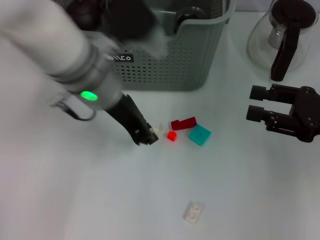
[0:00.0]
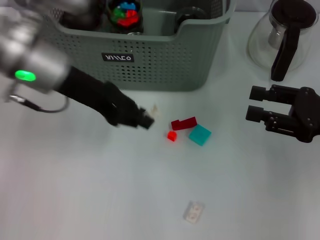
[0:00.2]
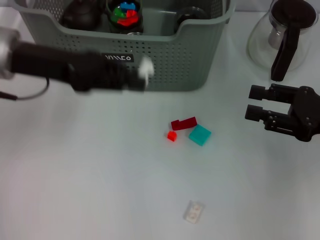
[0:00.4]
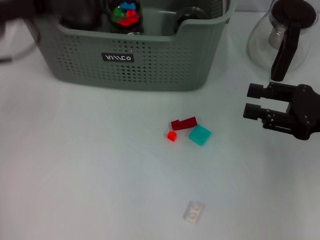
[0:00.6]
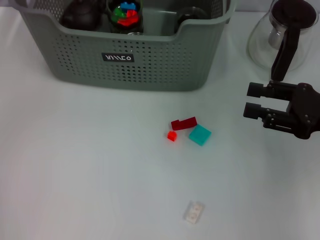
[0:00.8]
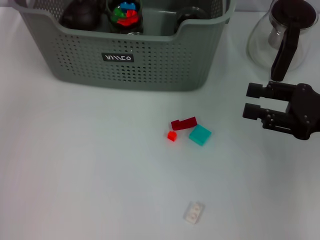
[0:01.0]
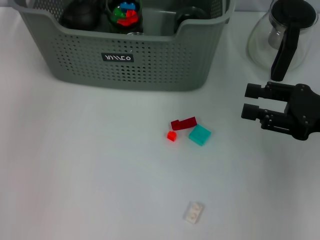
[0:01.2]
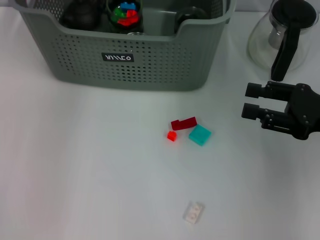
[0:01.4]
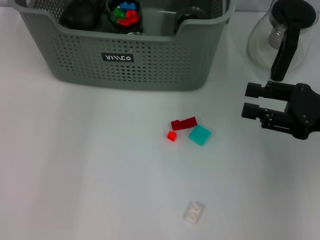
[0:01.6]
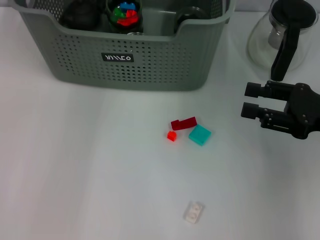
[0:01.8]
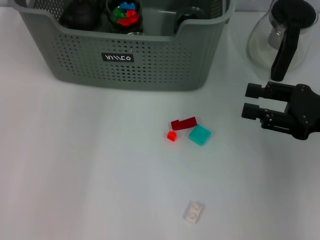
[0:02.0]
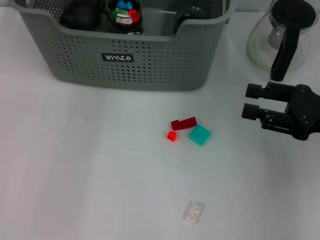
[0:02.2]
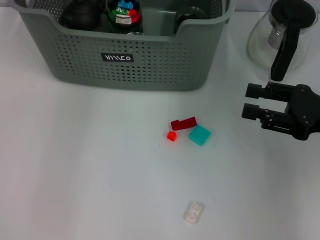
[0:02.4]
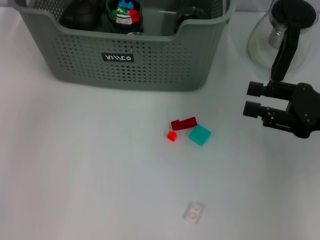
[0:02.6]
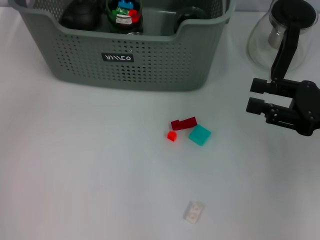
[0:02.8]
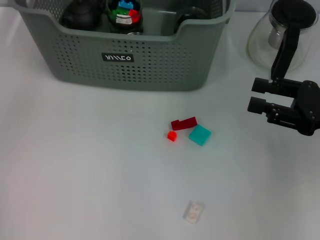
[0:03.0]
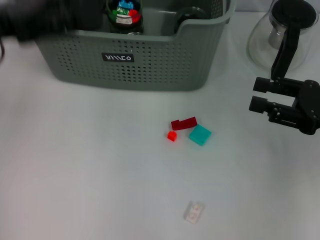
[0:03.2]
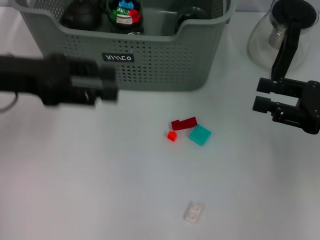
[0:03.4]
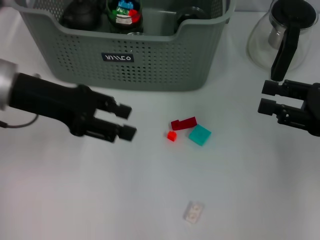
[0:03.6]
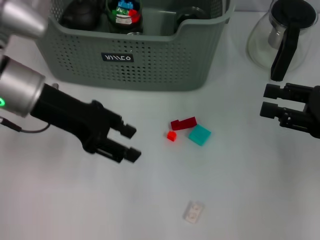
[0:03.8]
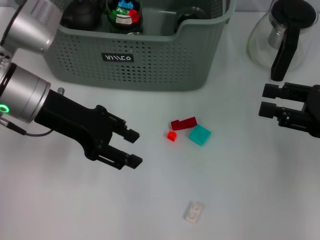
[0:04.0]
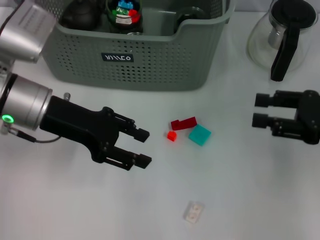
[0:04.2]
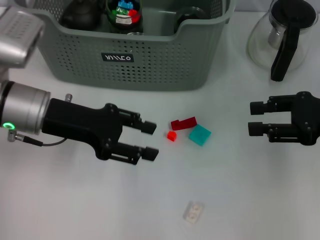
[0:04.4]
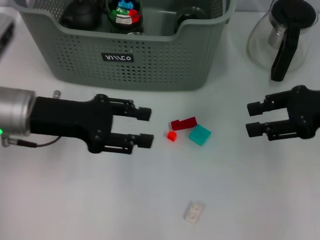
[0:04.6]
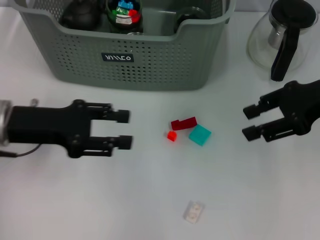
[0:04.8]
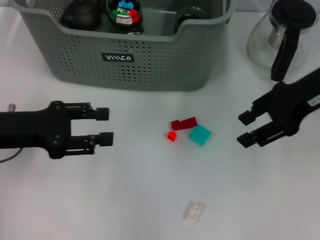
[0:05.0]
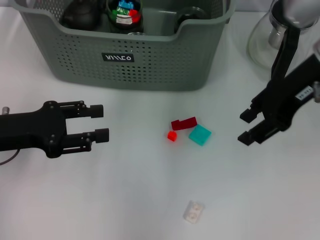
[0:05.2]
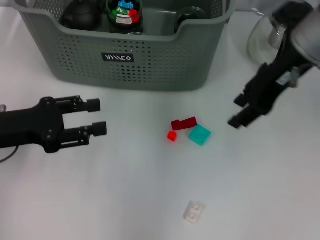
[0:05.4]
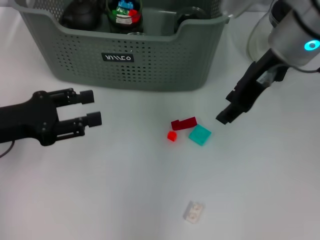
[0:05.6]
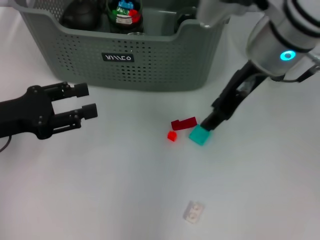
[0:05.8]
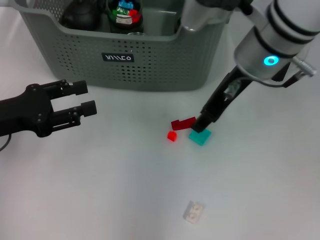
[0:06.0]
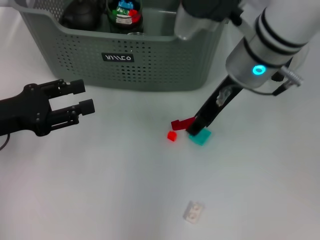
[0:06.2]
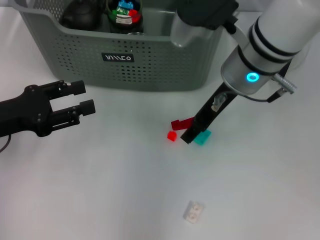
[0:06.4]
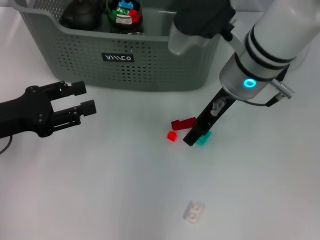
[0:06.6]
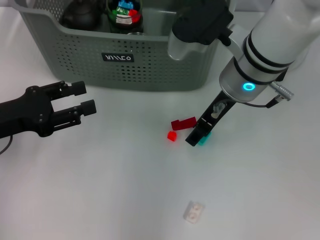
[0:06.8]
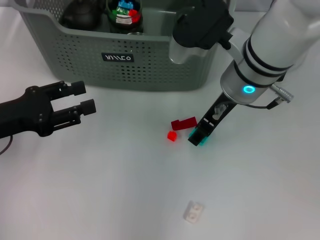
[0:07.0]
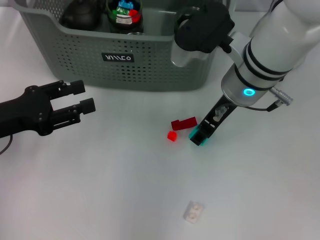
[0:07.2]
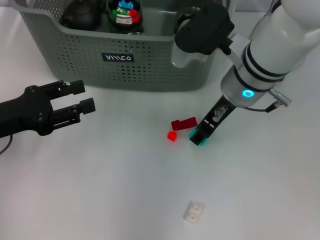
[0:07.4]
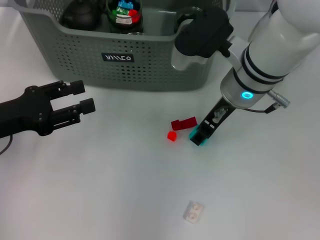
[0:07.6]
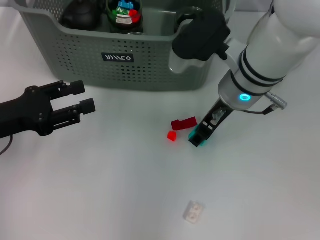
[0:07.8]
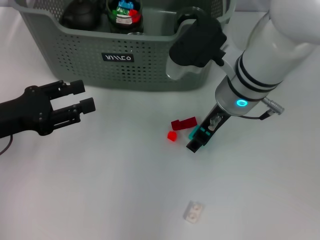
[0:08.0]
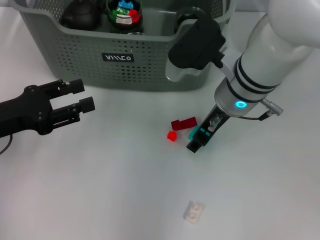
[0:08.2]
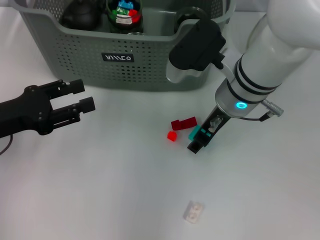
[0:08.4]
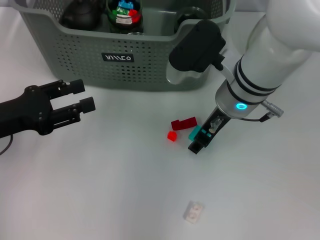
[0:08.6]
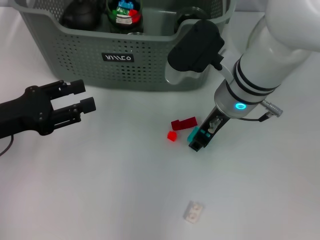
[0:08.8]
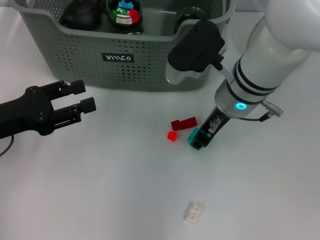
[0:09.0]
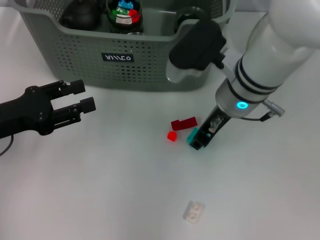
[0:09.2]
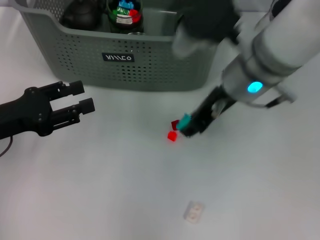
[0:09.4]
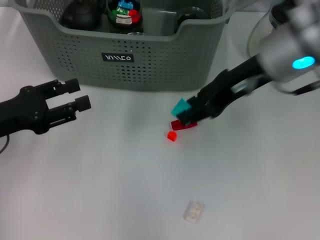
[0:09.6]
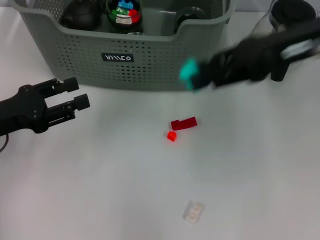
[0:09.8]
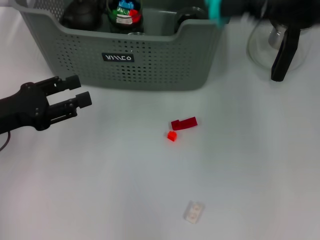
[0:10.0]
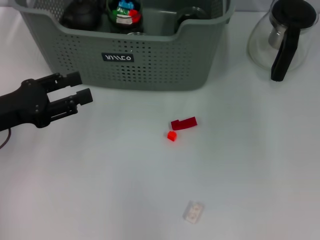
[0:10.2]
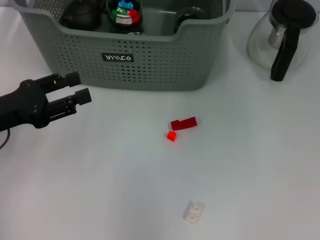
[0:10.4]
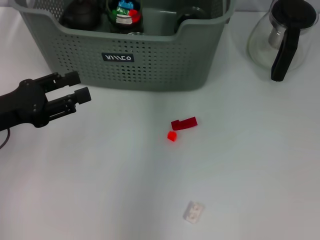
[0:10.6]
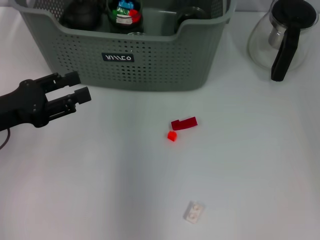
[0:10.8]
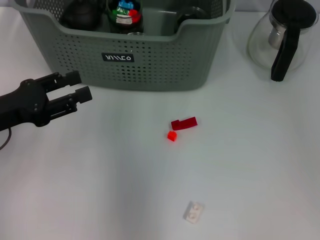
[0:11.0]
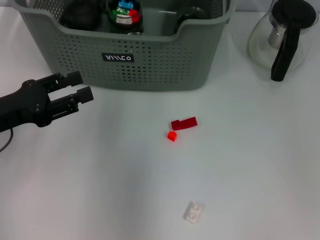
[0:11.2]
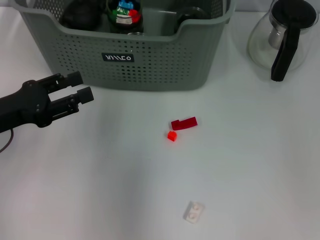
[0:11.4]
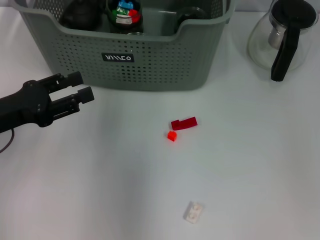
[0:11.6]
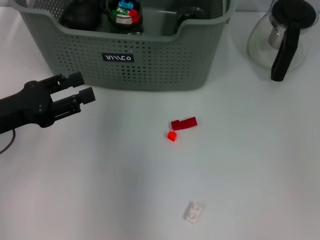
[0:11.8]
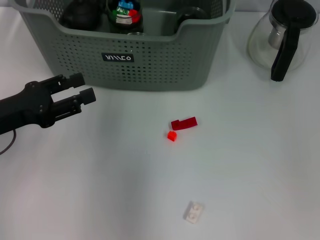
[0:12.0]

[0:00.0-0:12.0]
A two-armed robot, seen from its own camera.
Task of the whole recording: pick up the teacup on the table and place it into the storage bin, pick up the block on the table and place it into the storage bin.
Step, 0:00.0 to 0:02.2: Place the white block in the storage box with left gripper.
Step, 0:02.4 to 0:09.0: Grasp the light blue block with right gripper.
0:00.0 to 0:01.6: The left gripper goes approximately 20 cm forward and upward.
0:03.0 to 0:04.4: The left gripper shifts roughly 15 cm downward and to the right.
0:04.4 to 0:06.0: The right gripper is displaced to the left by roughly 20 cm; the left gripper shifts roughly 10 cm to the left and backward.
0:06.0 to 0:07.6: The right gripper travels downward by approximately 5 cm.
0:07.6 to 0:09.0: The grippers make only small movements.
0:09.0 to 0:10.4: The right gripper is displaced upward and to the right by some 25 cm.
0:10.4 to 0:12.0: The right gripper shifts roughly 20 cm to the left, downward and forward.

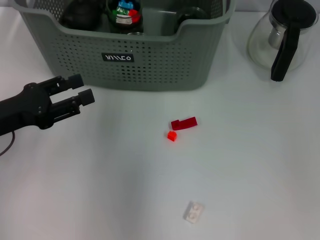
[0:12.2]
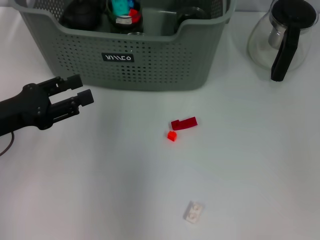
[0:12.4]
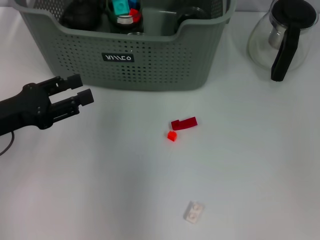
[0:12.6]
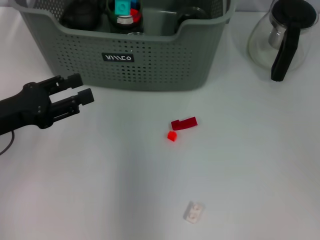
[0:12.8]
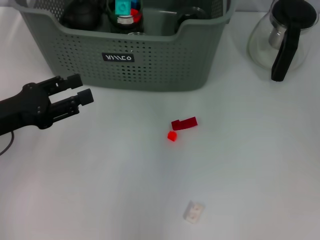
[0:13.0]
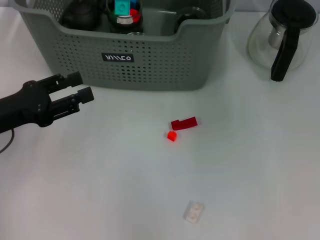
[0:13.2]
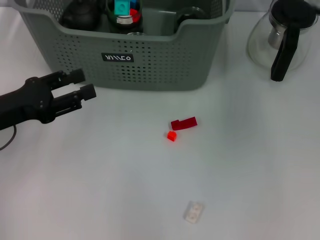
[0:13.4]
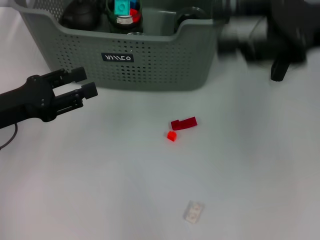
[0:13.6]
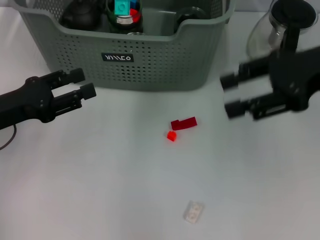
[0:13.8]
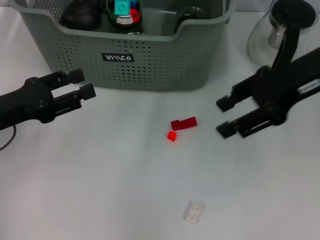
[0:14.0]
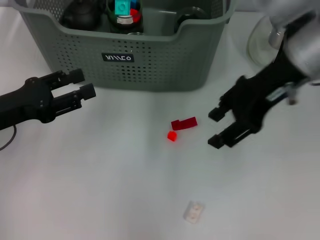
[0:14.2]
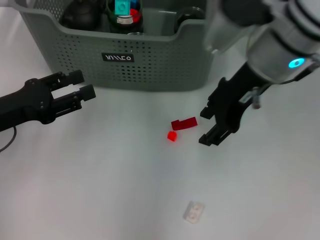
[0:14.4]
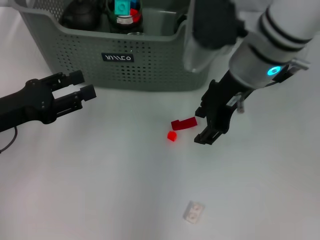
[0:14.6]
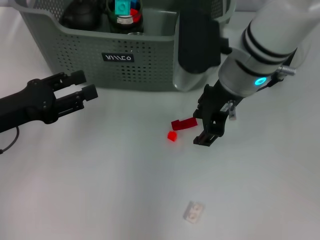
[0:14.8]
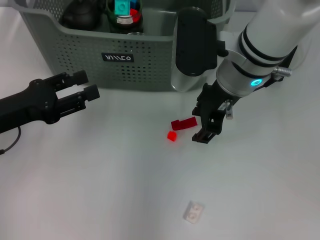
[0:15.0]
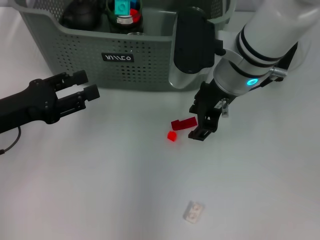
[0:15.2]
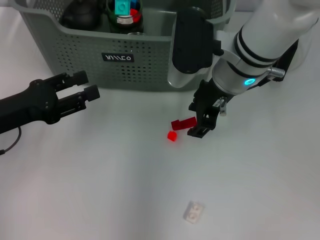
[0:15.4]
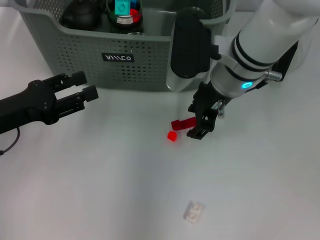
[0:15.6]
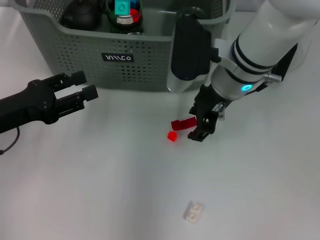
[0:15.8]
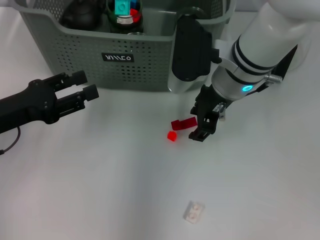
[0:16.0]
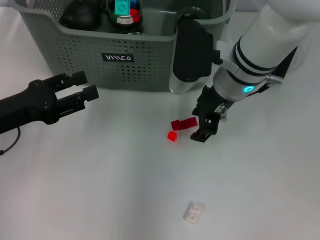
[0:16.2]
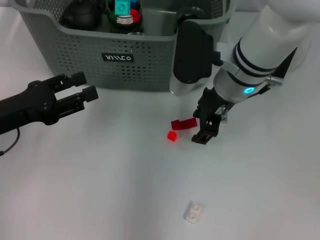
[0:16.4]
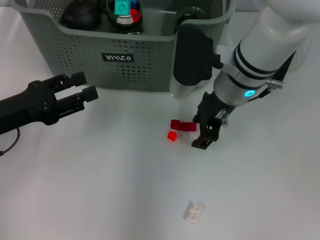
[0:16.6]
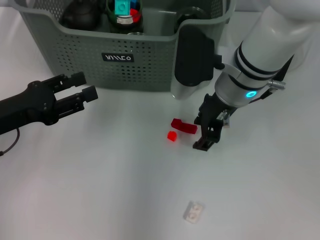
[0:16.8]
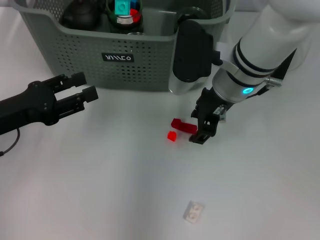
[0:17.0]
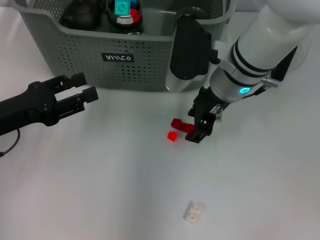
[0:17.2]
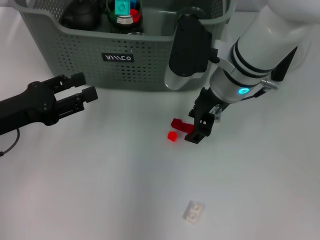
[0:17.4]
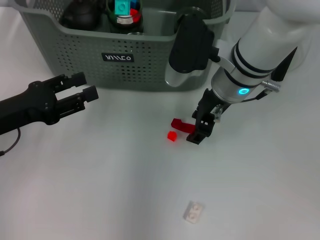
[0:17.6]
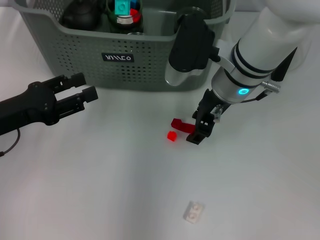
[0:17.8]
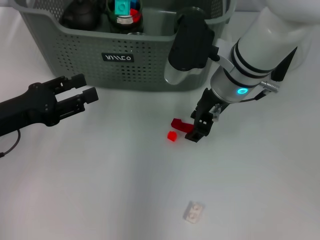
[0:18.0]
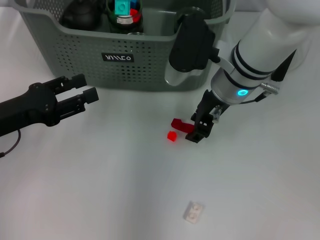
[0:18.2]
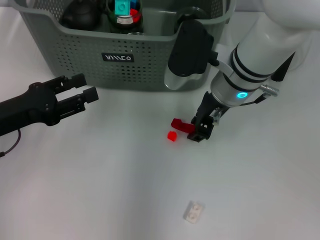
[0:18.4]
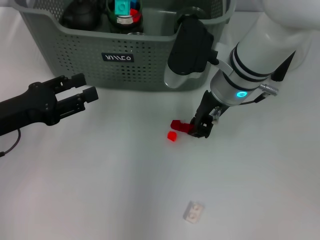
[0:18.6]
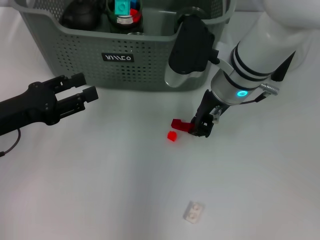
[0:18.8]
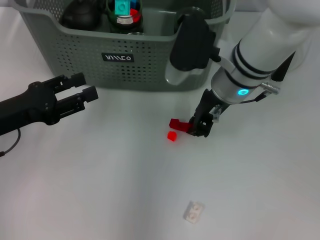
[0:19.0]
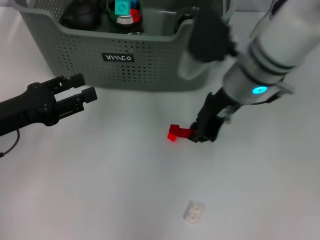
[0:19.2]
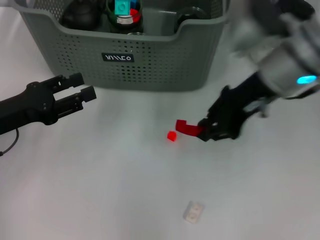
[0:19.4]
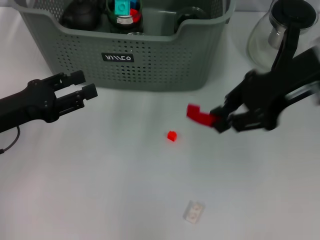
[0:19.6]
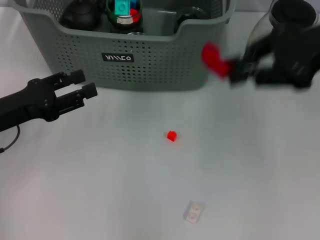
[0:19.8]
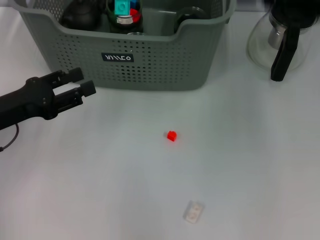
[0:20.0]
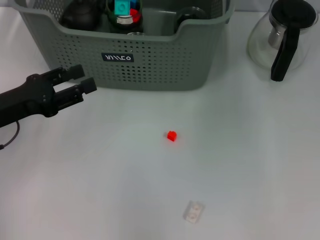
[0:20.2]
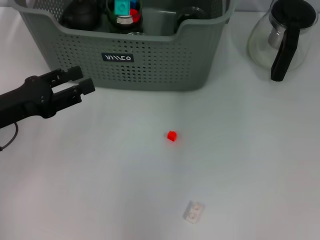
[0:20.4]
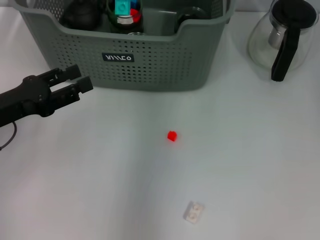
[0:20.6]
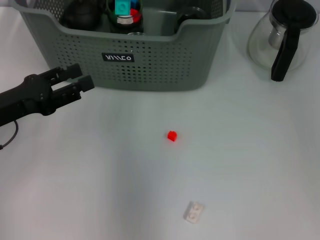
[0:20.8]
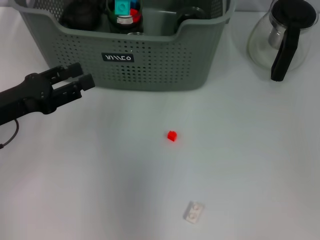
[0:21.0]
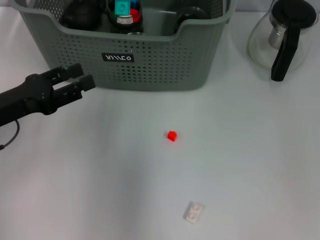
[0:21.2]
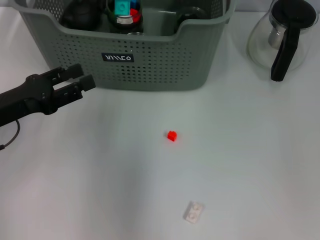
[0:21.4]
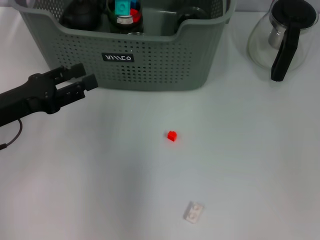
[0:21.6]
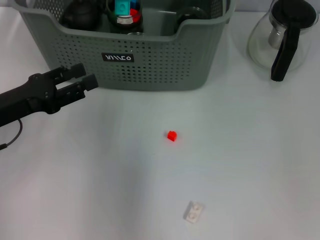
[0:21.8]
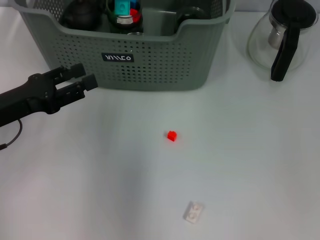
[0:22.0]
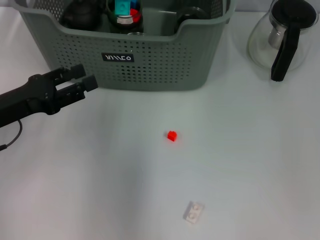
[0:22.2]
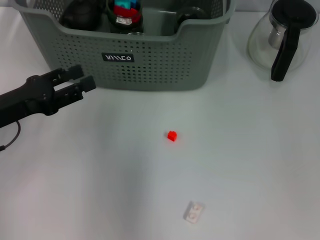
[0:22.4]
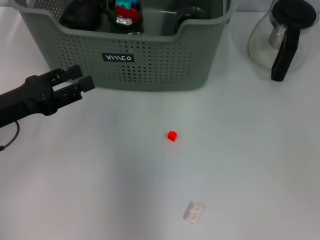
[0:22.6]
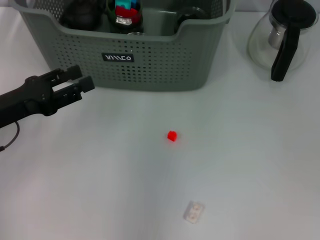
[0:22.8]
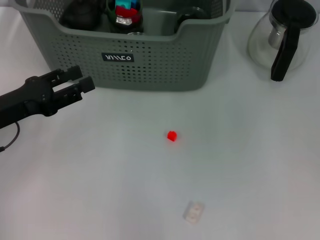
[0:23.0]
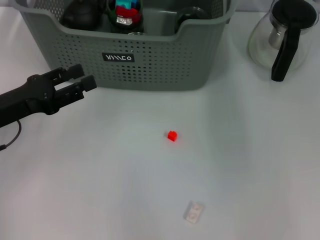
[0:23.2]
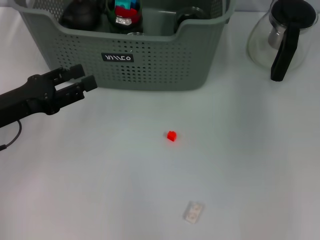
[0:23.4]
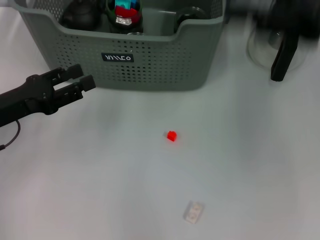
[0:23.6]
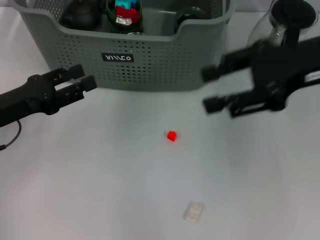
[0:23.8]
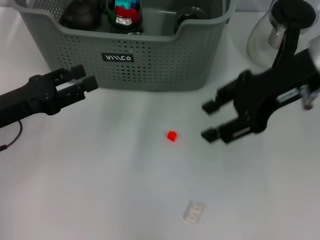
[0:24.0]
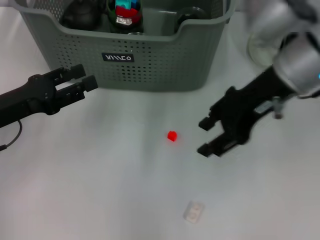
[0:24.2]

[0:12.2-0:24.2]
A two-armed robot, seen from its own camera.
Task of the whole recording: pick up the teacup on the table and place it into the storage bin, pick up the block on the table and place it into the storage bin.
Step, 0:12.6 to 0:18.8: Grasp the red block with right gripper.
Step, 0:19.0 to 0:22.2: Place the red block in the storage box with right gripper.
0:12.2 to 0:13.8: The right gripper heads to the right and backward, covering some 25 cm.
0:13.8 to 0:15.2: The right gripper goes approximately 15 cm to the left and downward.
0:15.2 to 0:18.2: The grippers stay close to where they were, moving slightly.
0:18.2 to 0:19.8: The right gripper moves to the right and upward, approximately 20 cm, and closes.
0:19.8 to 0:21.2: The right gripper is displaced to the left and forward by some 25 cm.
0:22.6 to 0:24.2: The right gripper is displaced to the right and backward by about 20 cm.
